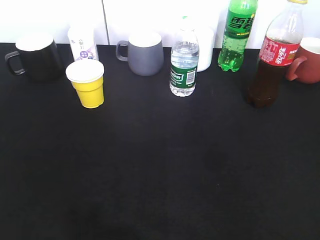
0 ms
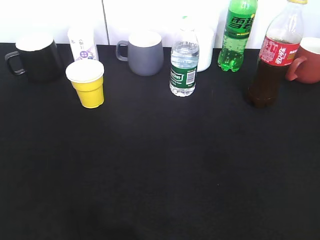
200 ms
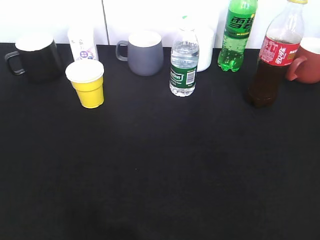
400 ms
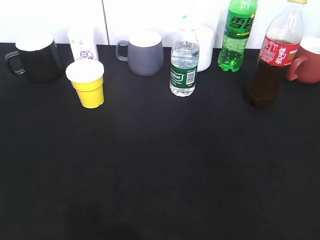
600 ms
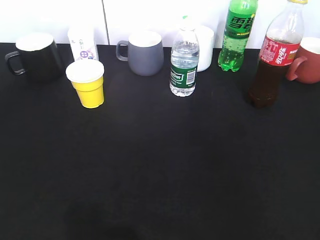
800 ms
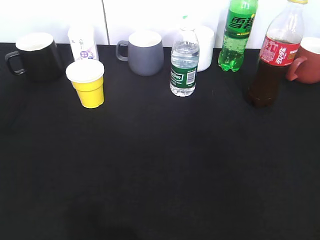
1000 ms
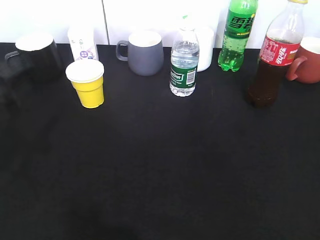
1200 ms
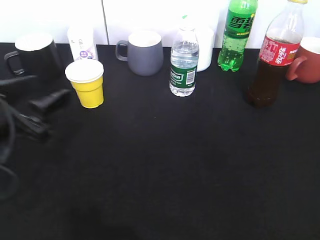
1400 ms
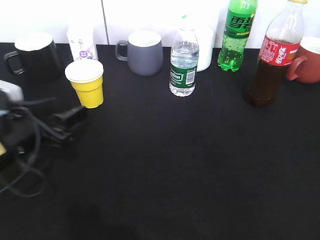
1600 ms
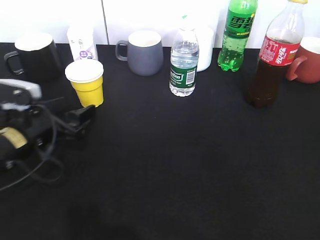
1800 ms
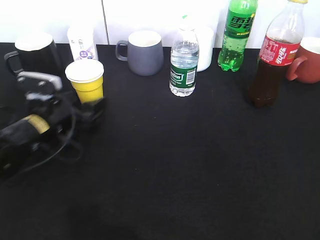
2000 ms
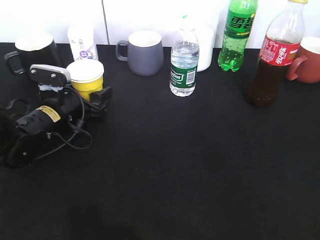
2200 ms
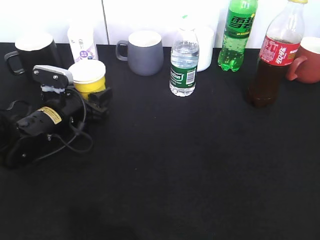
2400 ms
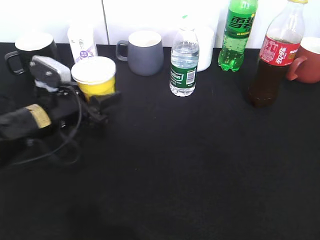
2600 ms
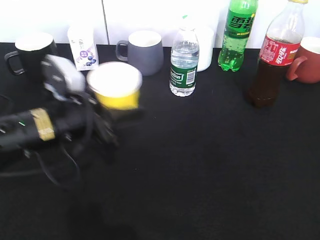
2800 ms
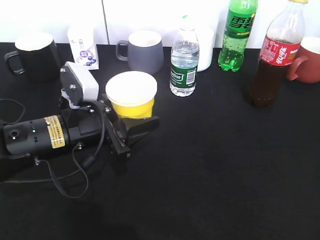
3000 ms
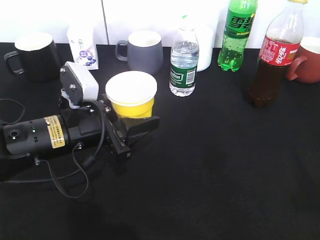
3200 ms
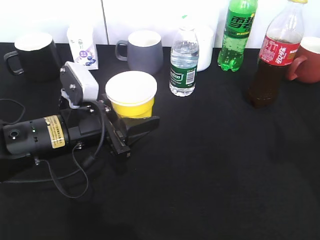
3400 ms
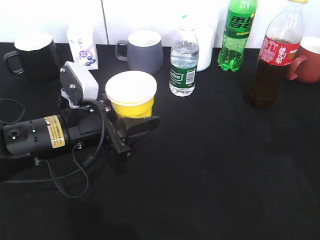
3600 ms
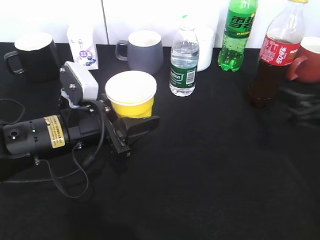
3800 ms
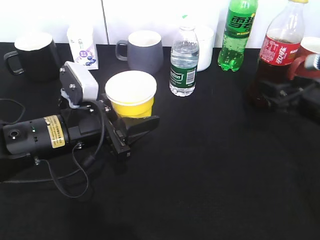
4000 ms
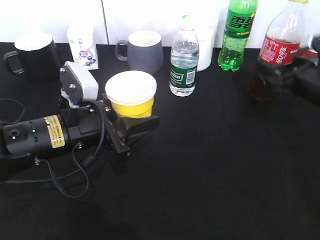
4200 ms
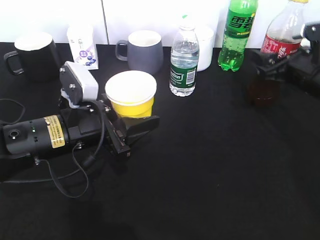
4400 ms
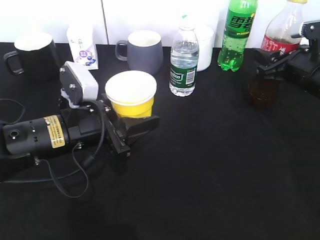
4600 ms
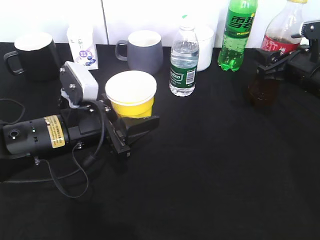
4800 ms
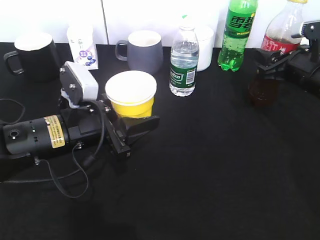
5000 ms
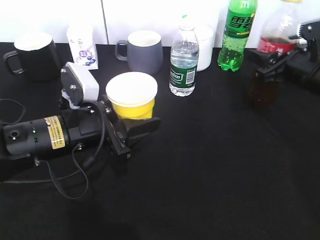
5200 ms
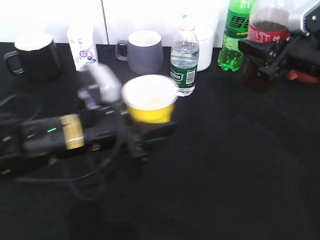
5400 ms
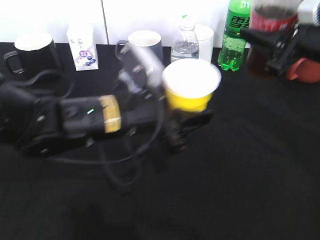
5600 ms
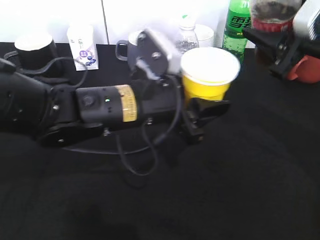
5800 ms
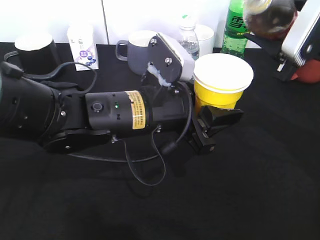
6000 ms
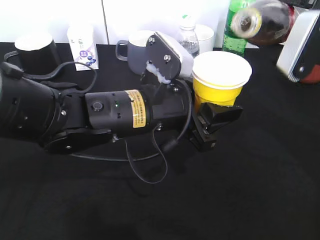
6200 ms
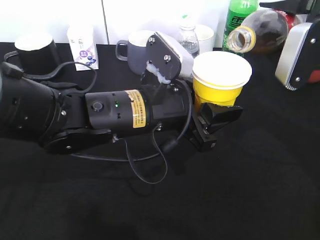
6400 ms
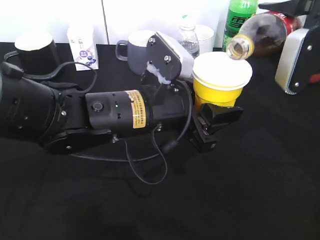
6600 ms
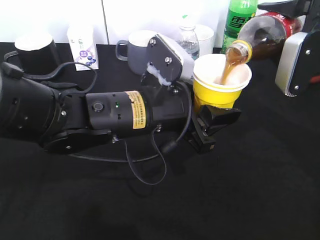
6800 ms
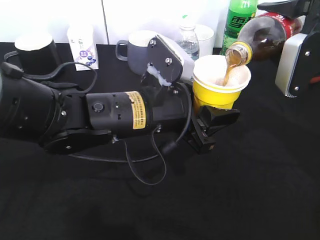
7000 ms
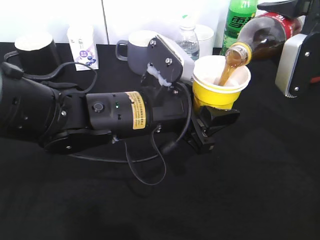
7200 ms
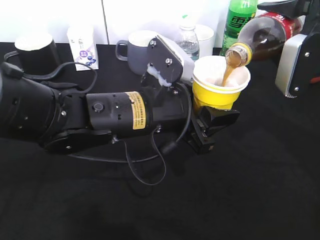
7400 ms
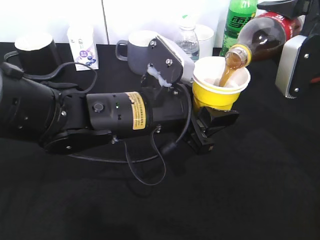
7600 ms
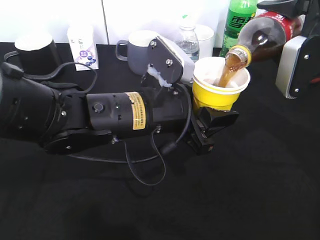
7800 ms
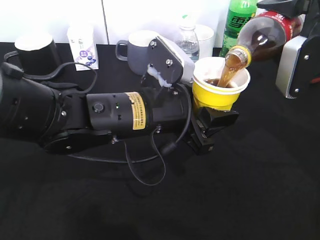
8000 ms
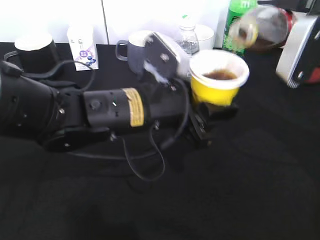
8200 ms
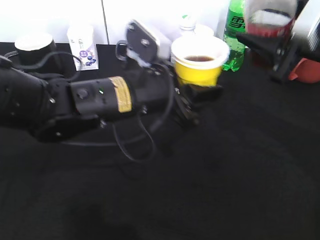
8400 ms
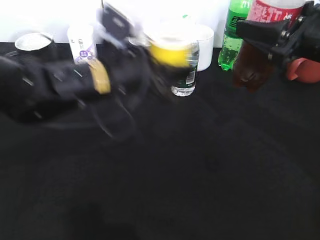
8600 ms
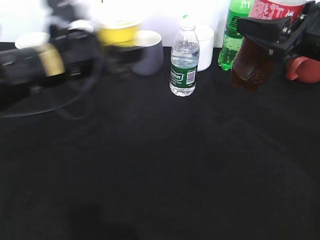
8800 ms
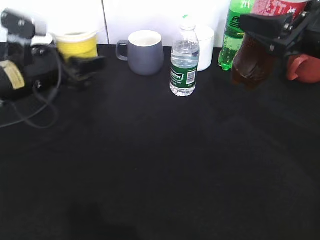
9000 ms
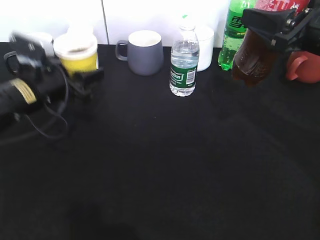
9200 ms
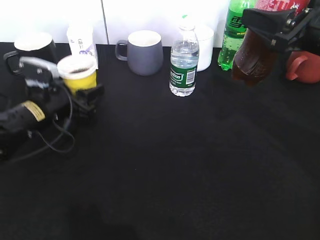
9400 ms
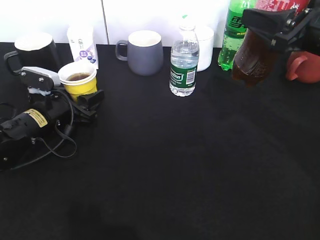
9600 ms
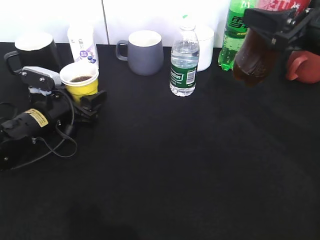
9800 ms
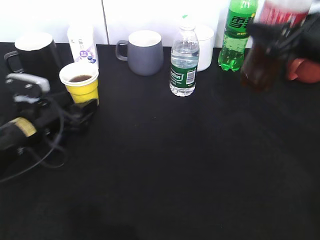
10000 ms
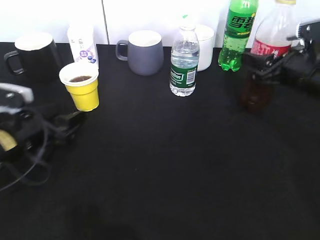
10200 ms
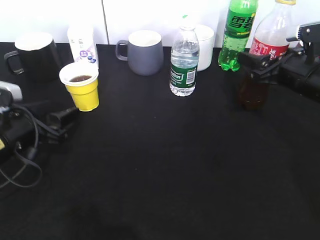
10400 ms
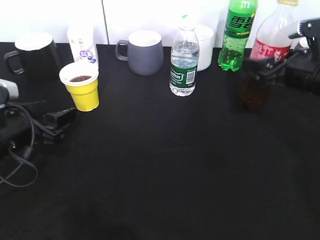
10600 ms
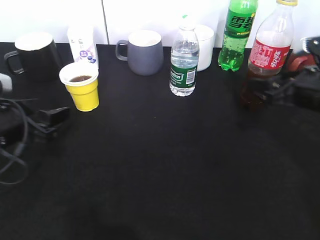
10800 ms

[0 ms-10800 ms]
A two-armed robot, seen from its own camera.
Step, 0 ms to 2200 ms: Grasp the yellow paper cup with left gripper.
Step, 2600 ms to 2800 ms: Lift the yellow paper cup with left gripper.
Step, 3200 ms to 4800 ms: Grasp the bottle with cola with right gripper.
Step, 5200 ms to 7800 ms: Pour the cola from bottle to cup with right gripper.
Step, 8000 ms to 10000 ms: Place the yellow paper cup on the table with left gripper.
0 ms to 1600 ms: The left gripper heads forward, downward and to the right, covering some 30 cm, and opens its fingers.
1600 ms to 3000 ms: The left gripper moves to the right, about 10 cm, goes forward and returns, about 10 cm each way, and closes its fingers.
3000 ms to 4600 ms: The right gripper goes roughly 35 cm forward, and opens, then closes again.
4600 ms to 6200 ms: The left gripper shifts some 10 cm to the right. The right gripper heads upward and backward, covering some 10 cm.
7800 ms to 9200 ms: The left gripper is displaced to the left and forward by roughly 20 cm.
9200 ms to 10800 ms: The left gripper heads backward, covering about 10 cm, and opens its fingers. Meanwhile the right gripper is displaced downward by about 10 cm, and opens.

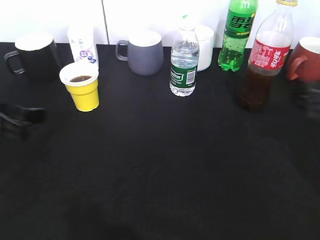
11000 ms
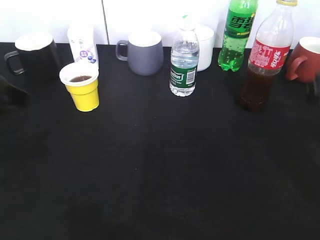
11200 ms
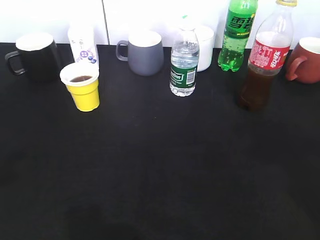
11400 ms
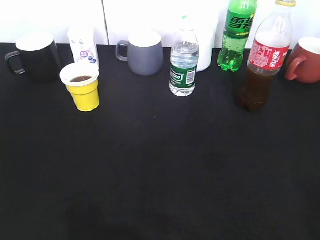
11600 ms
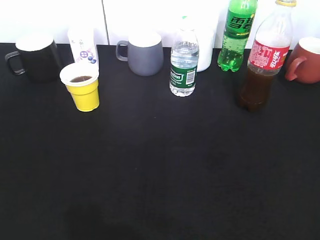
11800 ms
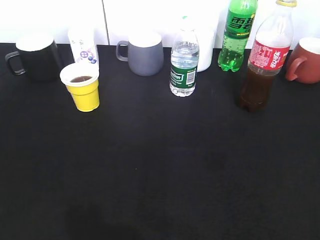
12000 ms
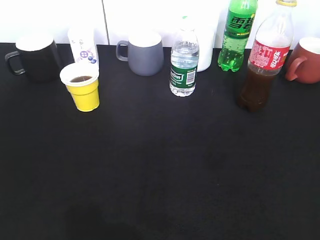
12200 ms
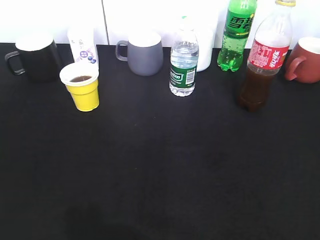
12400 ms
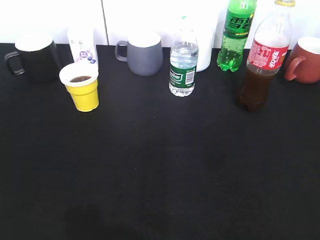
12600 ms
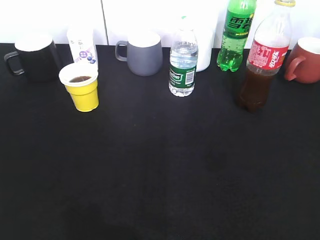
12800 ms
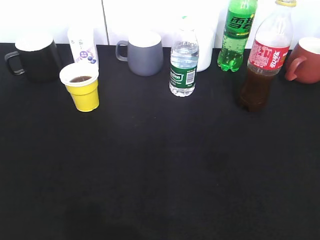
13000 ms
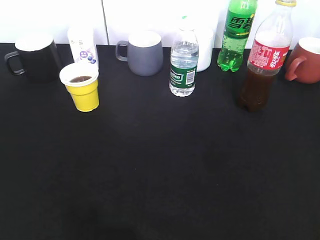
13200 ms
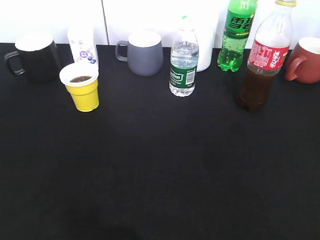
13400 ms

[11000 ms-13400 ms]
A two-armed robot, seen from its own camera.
11000 ms to 12200 ms: The right gripper shifts approximately 25 cm backward, and closes. The left gripper heads backward and upward, covering some 25 cm.

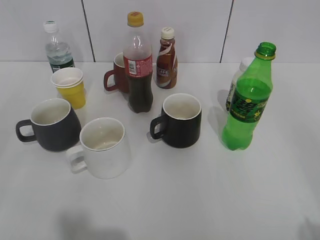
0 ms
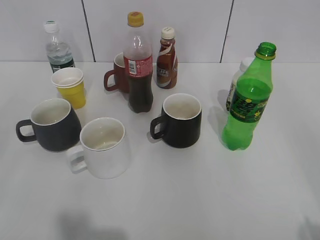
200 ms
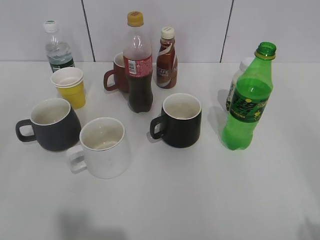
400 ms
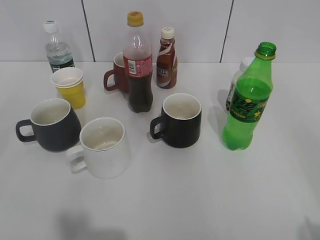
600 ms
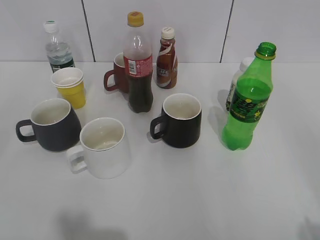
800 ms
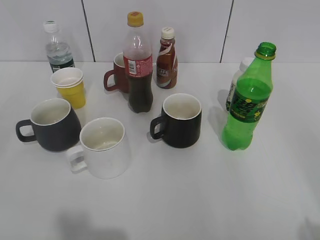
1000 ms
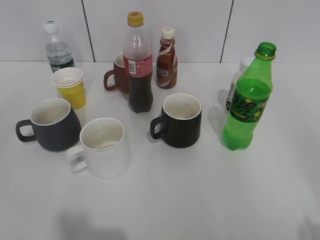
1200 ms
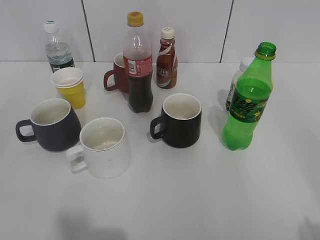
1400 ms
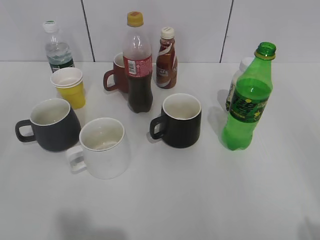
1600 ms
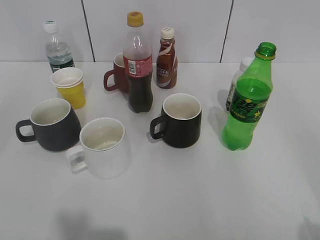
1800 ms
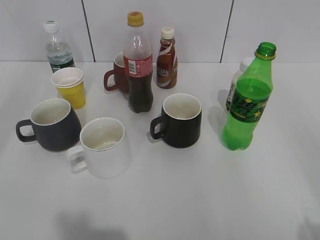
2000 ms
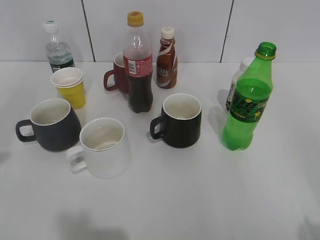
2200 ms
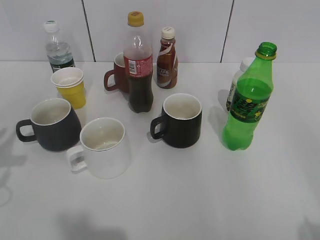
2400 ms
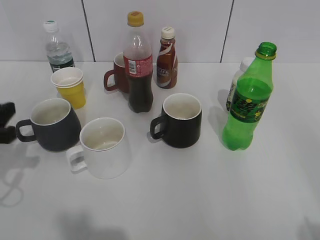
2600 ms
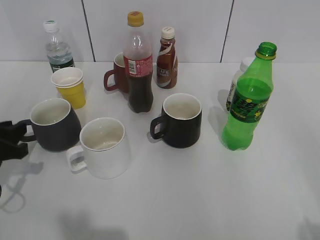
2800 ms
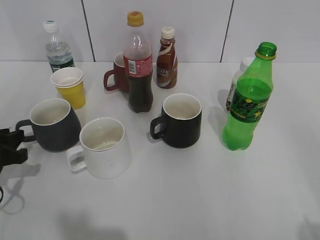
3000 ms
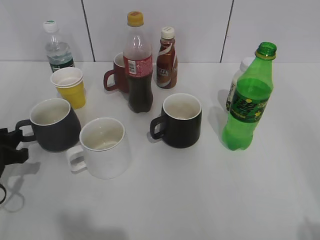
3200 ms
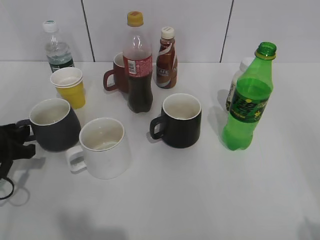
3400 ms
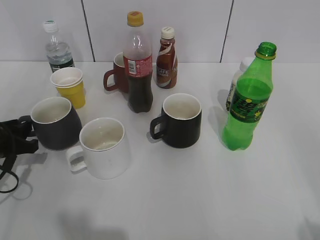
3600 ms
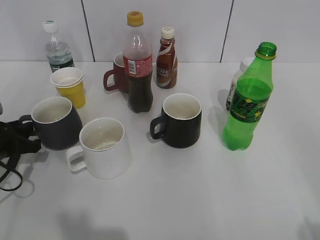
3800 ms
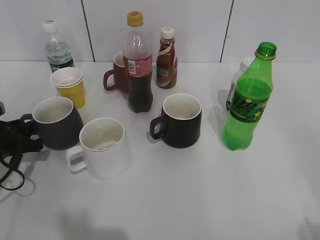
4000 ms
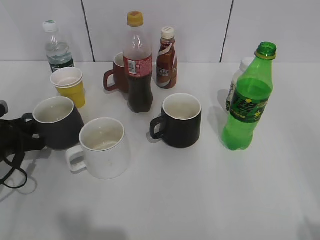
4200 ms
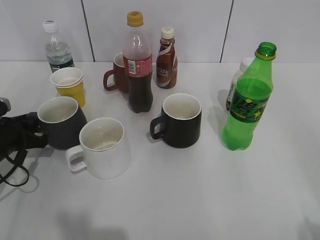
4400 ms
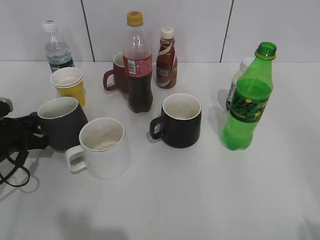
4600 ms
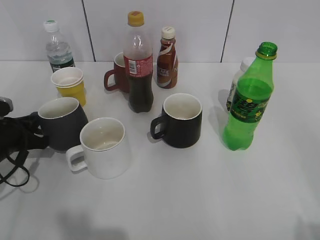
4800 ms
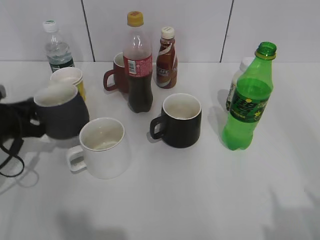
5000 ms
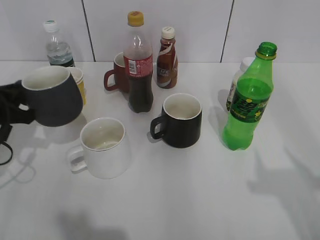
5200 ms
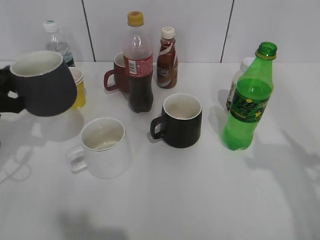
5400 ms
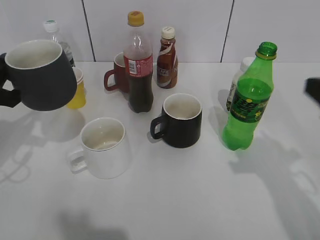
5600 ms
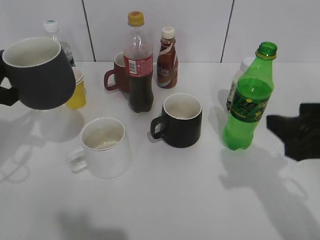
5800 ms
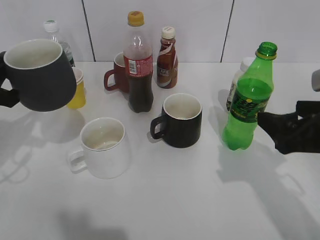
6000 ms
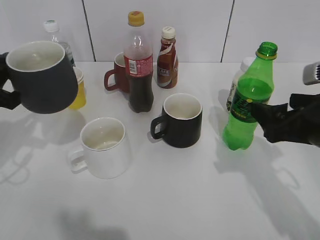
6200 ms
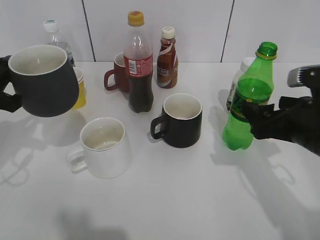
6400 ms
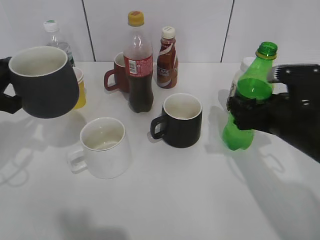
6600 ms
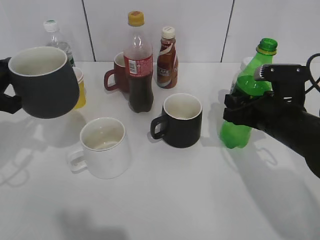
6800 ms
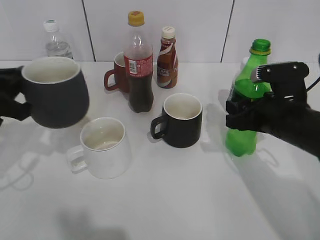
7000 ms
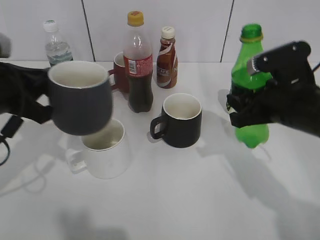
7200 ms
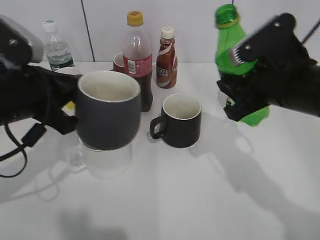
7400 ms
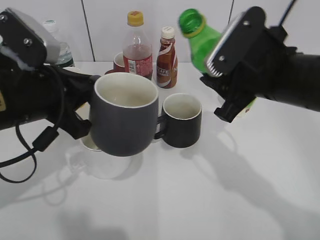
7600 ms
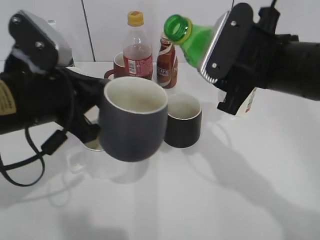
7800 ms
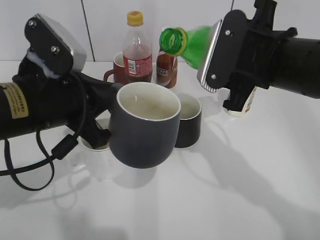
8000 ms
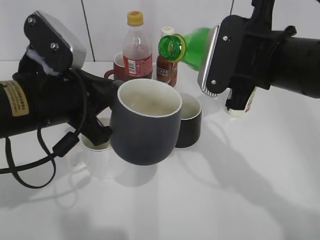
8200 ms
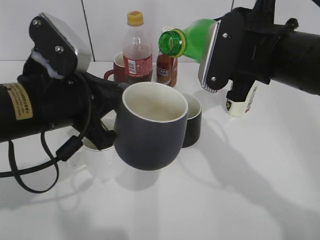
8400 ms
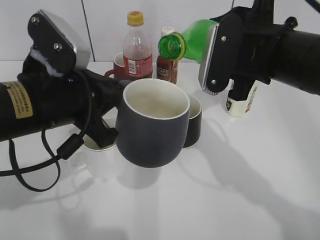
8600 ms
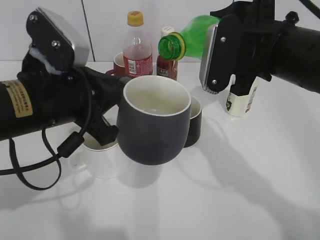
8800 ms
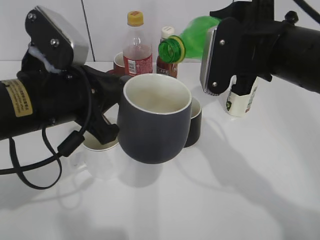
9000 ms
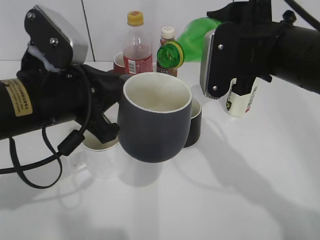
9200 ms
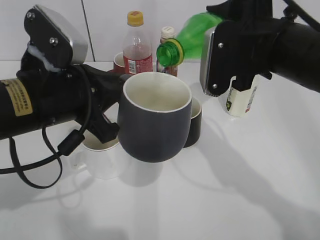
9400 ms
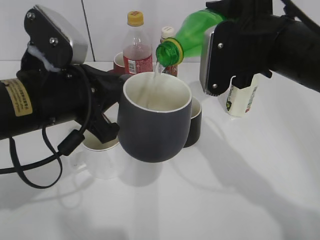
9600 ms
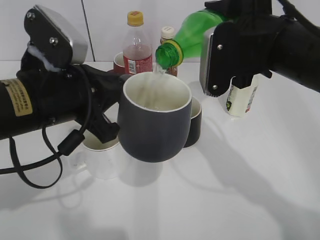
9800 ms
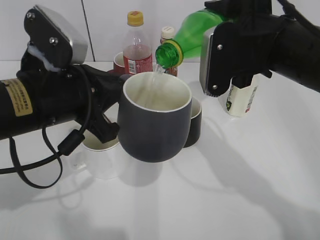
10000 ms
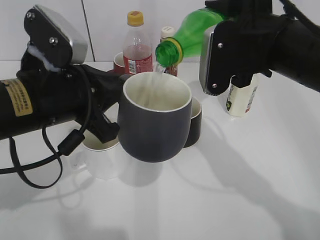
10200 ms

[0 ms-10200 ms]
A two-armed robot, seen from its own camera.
Step, 2400 ms to 4600 ms: Grasp the grey cup with left gripper.
Step, 4800 ms to 5600 ms: Lift the grey cup with left gripper.
Step, 6000 ms to 6800 ms: Grasp the bottle with sprite with right gripper.
1400 ms to 3000 ms: The left gripper is displaced forward and downward by approximately 30 cm.
3000 ms to 4400 ms: The left gripper is displaced forward by some 5 cm.
4400 ms to 5800 ms: The left gripper goes roughly 15 cm upward, and closes its fingers; the right gripper moves forward and to the left, roughly 20 cm.
5800 ms to 7200 ms: The left gripper changes place by some 5 cm. Meanwhile the right gripper travels forward by some 10 cm, and closes its fingers.
7200 ms to 8800 ms: The left gripper shifts approximately 10 cm to the right; the right gripper travels upward and to the left by some 10 cm.
8800 ms to 10200 ms: The grippers move only a little.
